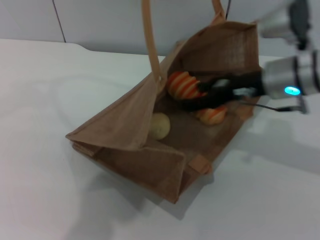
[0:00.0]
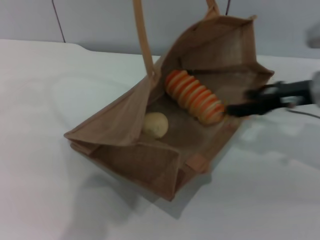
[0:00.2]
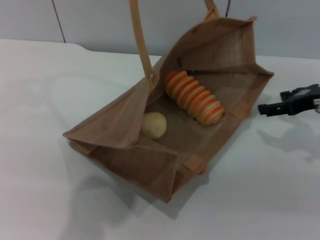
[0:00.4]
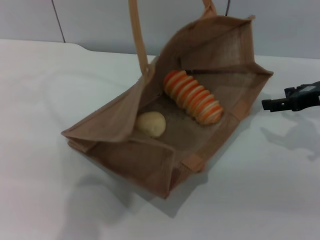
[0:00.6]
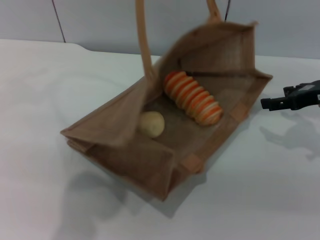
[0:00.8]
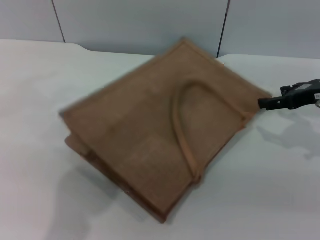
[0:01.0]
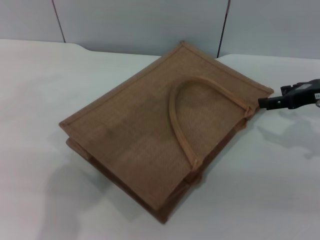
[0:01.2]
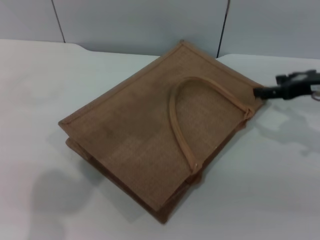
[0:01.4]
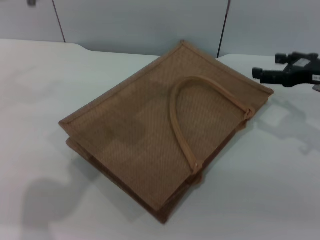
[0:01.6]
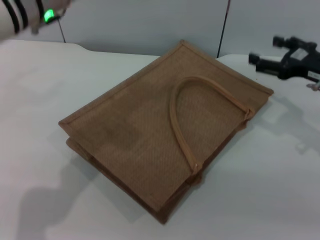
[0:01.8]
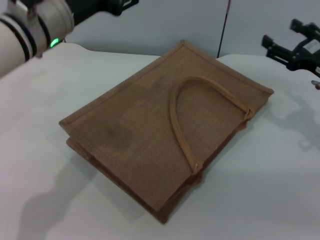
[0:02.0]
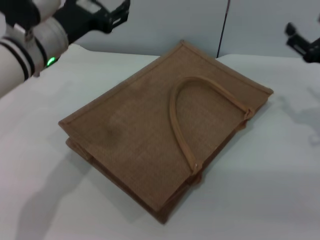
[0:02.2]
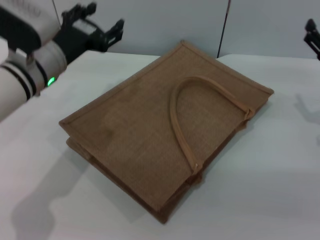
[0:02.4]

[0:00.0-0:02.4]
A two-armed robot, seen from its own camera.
Task of the whole recording: pick up the bread and egg yolk pastry from the table and place it in the brown handbag.
Step, 0:00.0 to 0:01.2: Lower the woven bag with the left gripper to close it.
0:00.0 to 0:01.2: The right gripper is displaced to the right by some 10 cm. Meanwhile the left gripper opens its fingers.
0:01.2 to 0:02.4: The right gripper is displaced downward by about 5 cm, while the left gripper travels downward by some 20 cm.
